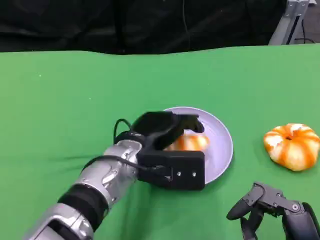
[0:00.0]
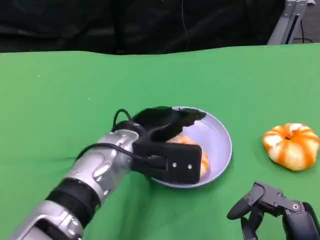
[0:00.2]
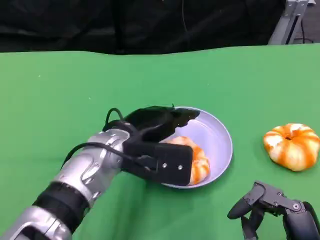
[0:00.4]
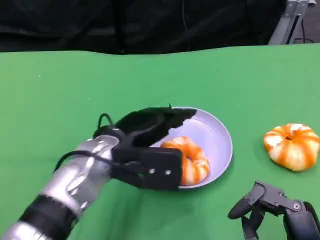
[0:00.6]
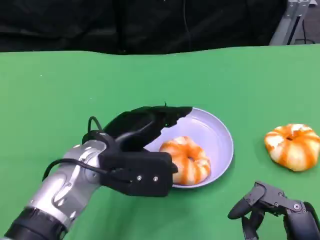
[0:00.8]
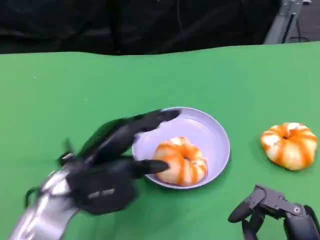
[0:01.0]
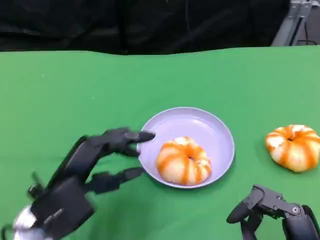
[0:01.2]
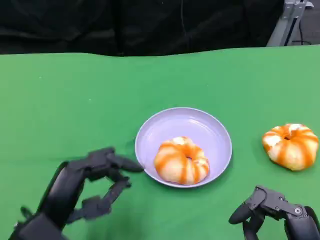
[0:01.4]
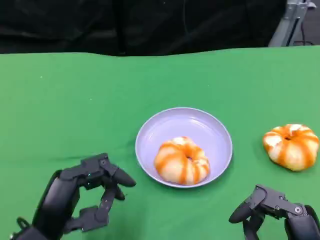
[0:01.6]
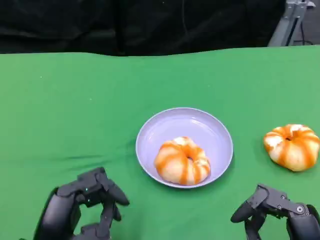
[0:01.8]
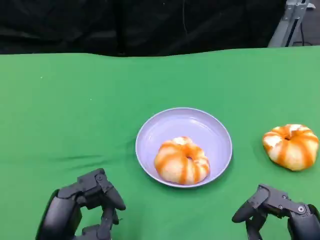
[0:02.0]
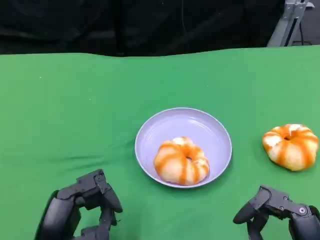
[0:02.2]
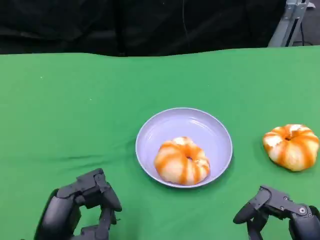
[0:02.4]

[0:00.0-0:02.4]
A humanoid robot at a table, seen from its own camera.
Task of the whole recording: Grasp the bread from the table and place it into the plate.
0:00.0 to 0:01.2: The left hand moves to the left and backward, approximately 15 cm.
0:01.2 to 0:02.4: The left hand shifts about 5 cm backward.

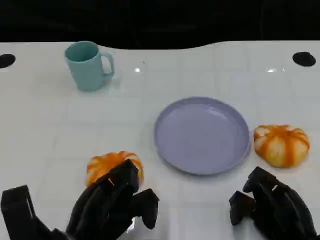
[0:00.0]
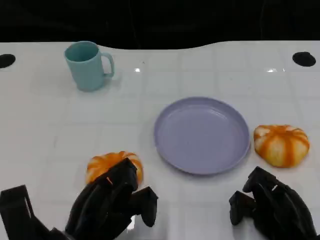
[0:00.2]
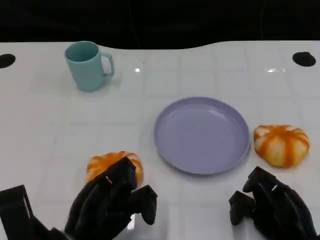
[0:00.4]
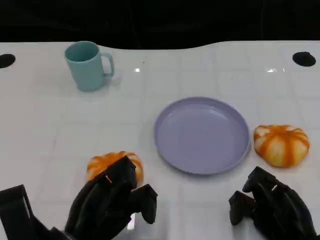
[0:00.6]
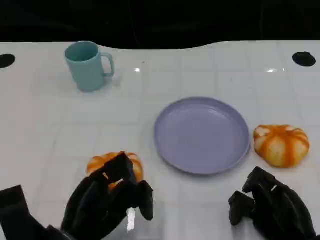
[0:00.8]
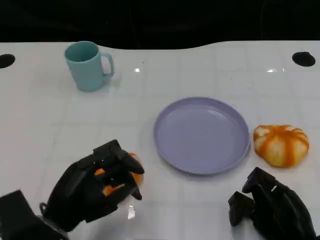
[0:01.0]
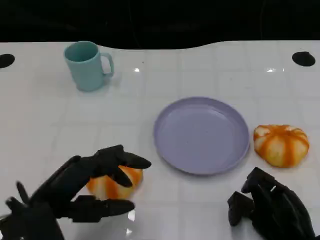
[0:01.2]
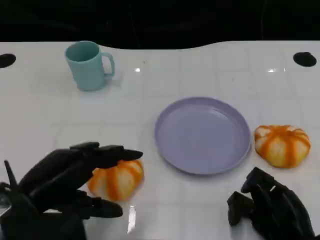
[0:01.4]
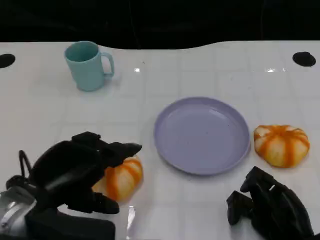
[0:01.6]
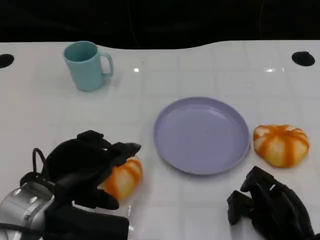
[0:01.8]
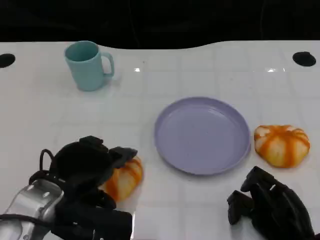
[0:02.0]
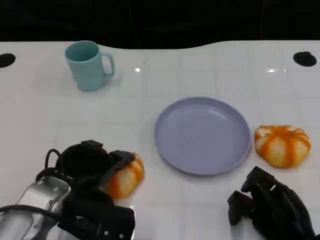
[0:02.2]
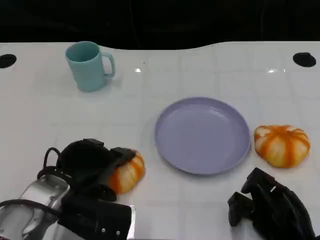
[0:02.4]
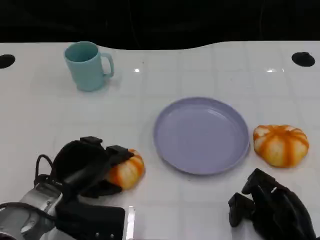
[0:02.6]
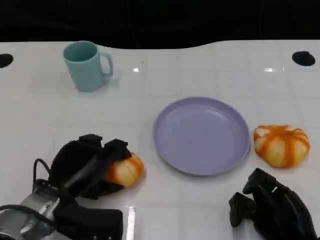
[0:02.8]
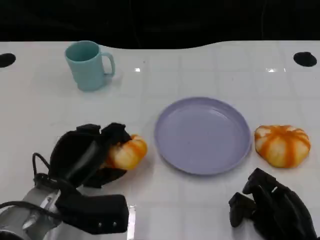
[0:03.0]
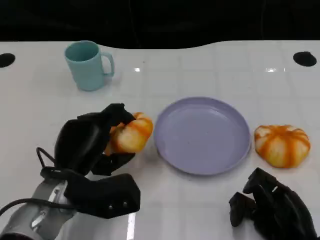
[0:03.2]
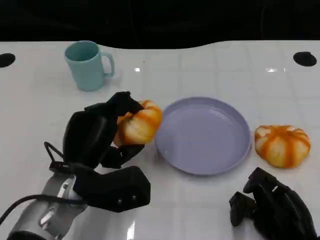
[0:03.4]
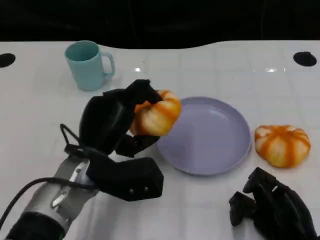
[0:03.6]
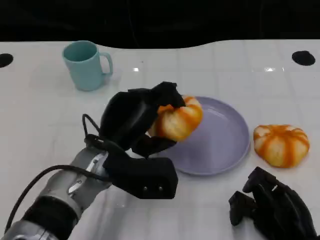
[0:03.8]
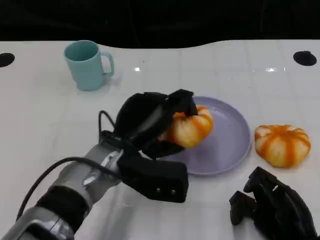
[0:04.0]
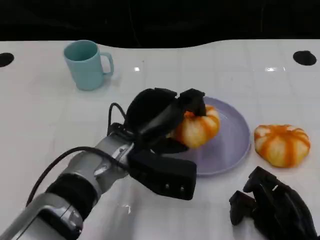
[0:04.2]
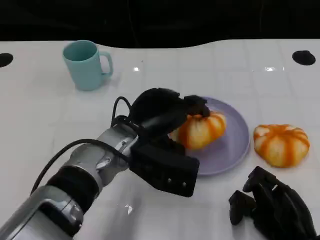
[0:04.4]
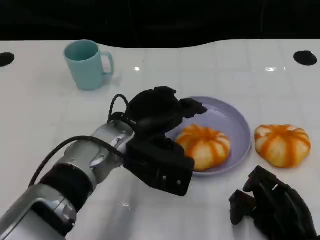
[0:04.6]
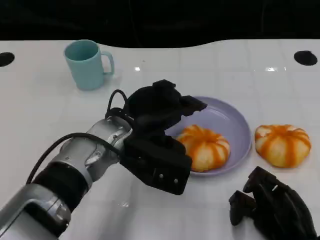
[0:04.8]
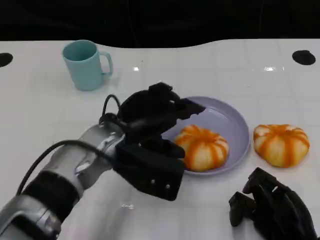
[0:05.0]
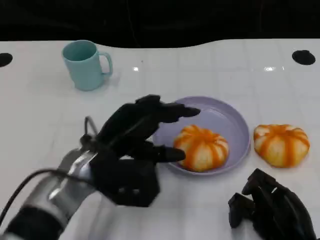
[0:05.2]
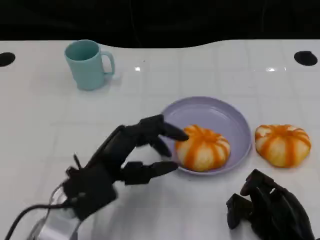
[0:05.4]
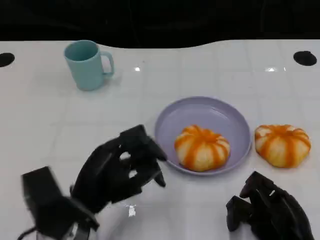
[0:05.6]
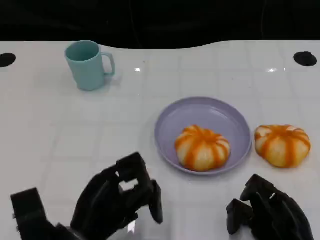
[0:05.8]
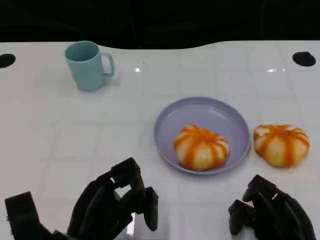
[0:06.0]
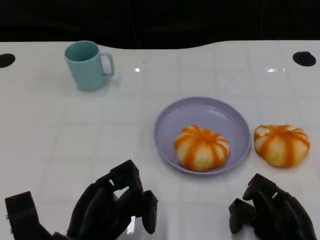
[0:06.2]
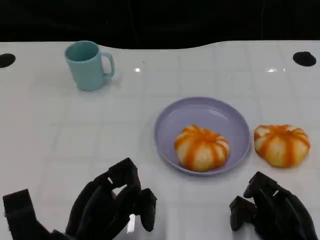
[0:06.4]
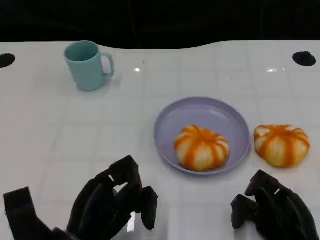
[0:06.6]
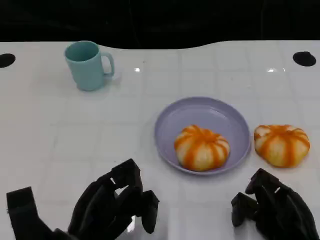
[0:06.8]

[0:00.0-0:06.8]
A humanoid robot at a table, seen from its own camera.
Task of the whole recording: Grasp the bread from the table and place it into the plate.
0:00.0 to 0:01.4: The left hand goes some 10 cm upward.
0:01.4 to 0:02.8: The left hand goes roughly 10 cm downward and forward.
0:02.8 to 0:04.0: The left hand goes about 10 cm to the right and upward.
0:04.0 to 0:05.4: The left hand shifts roughly 10 cm to the left and backward.
0:05.4 to 0:06.8: The left hand shifts about 5 cm backward.

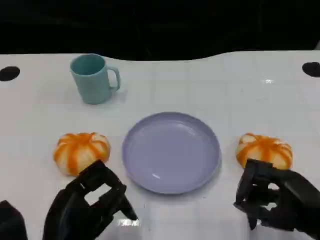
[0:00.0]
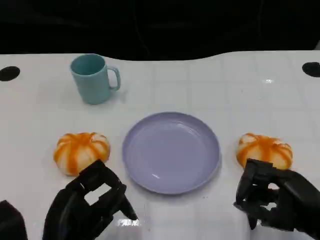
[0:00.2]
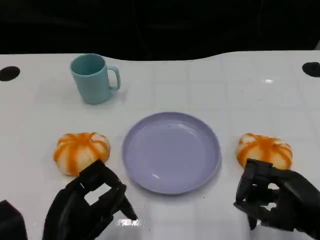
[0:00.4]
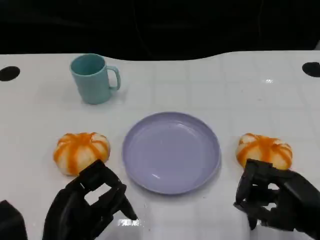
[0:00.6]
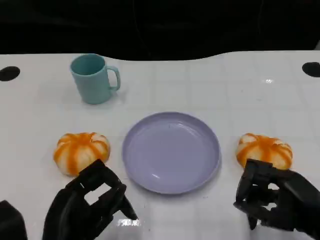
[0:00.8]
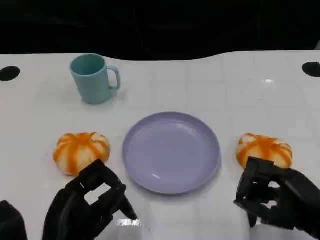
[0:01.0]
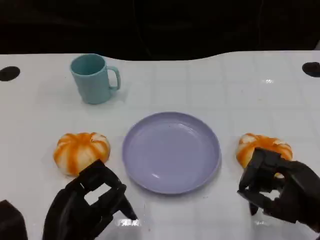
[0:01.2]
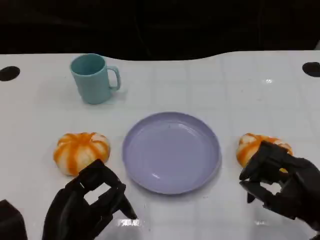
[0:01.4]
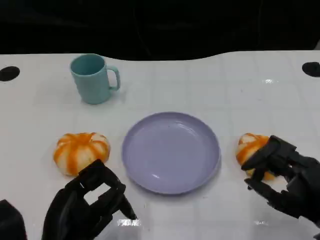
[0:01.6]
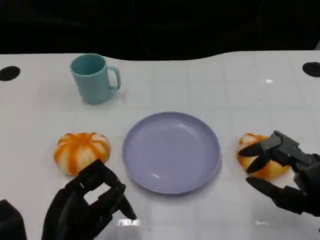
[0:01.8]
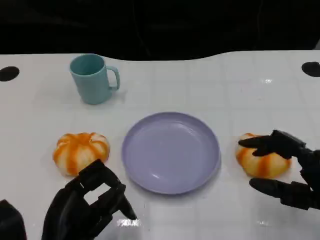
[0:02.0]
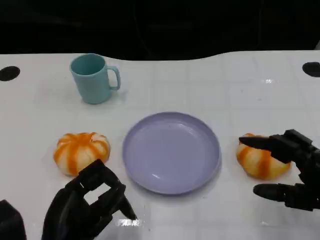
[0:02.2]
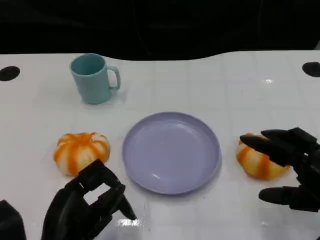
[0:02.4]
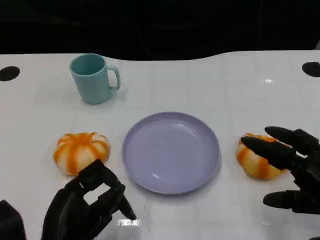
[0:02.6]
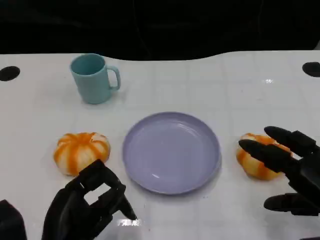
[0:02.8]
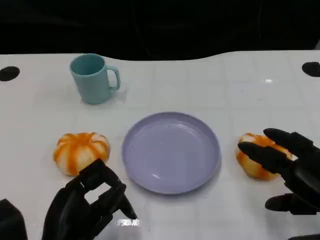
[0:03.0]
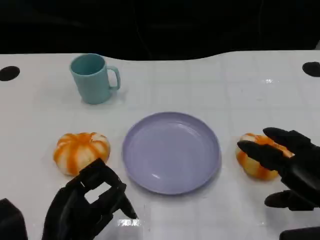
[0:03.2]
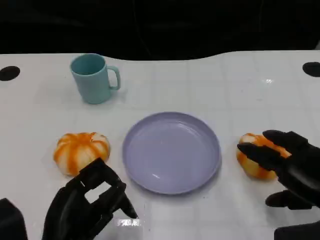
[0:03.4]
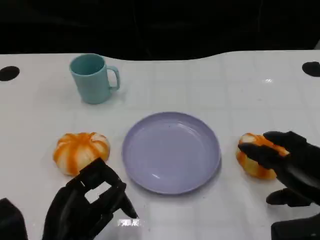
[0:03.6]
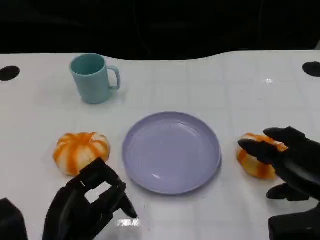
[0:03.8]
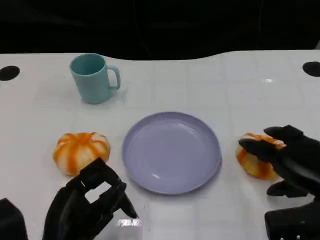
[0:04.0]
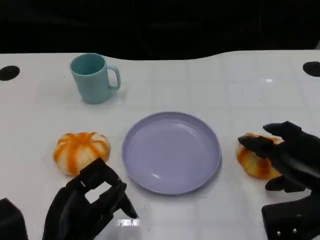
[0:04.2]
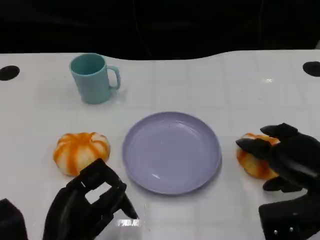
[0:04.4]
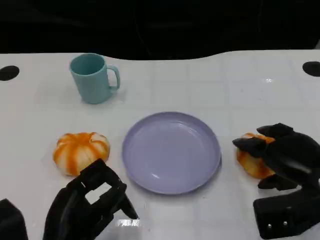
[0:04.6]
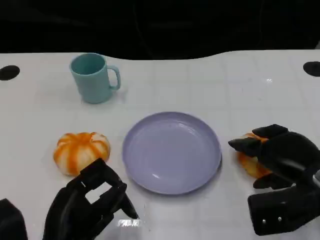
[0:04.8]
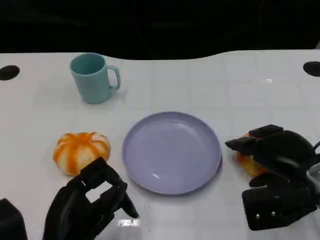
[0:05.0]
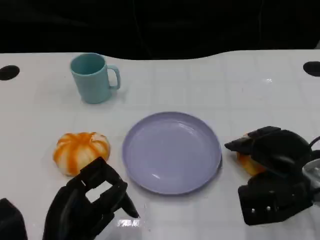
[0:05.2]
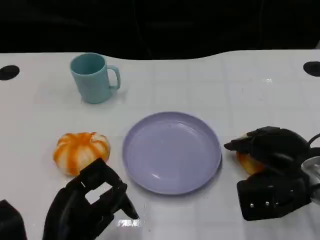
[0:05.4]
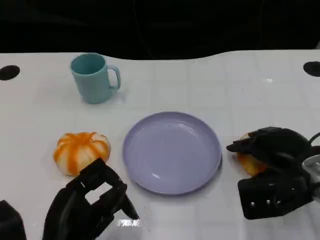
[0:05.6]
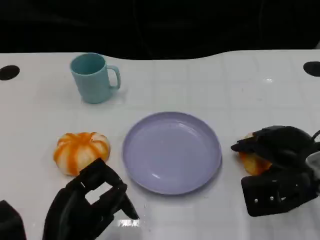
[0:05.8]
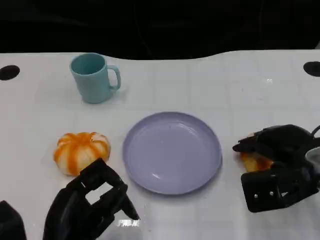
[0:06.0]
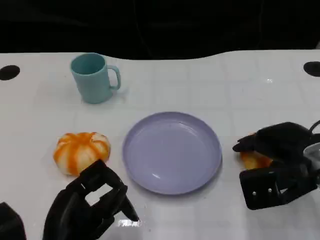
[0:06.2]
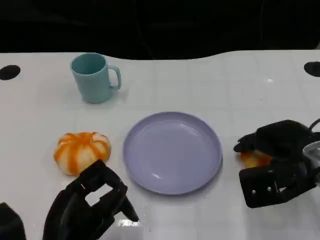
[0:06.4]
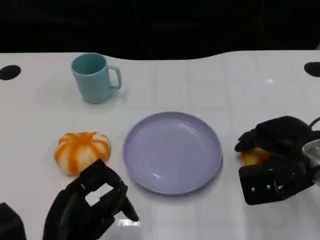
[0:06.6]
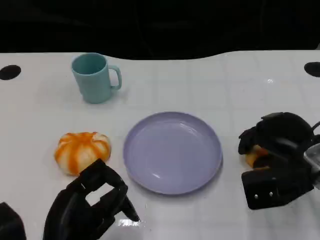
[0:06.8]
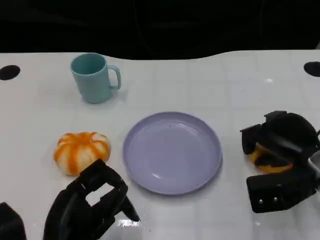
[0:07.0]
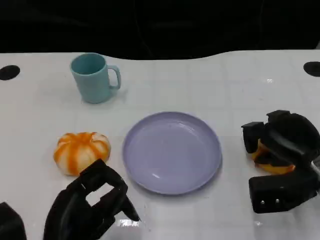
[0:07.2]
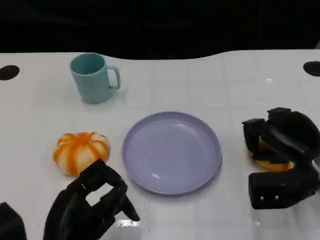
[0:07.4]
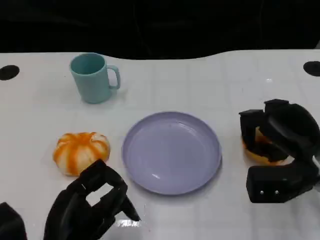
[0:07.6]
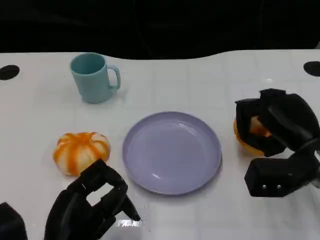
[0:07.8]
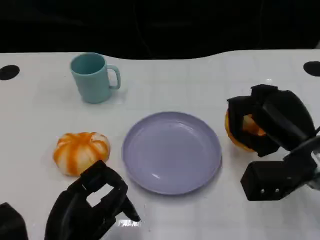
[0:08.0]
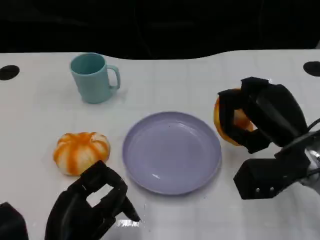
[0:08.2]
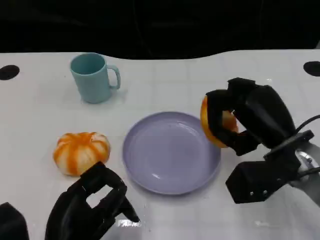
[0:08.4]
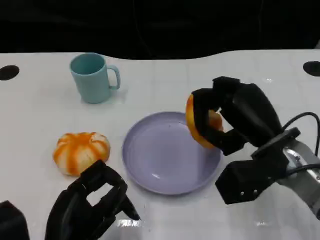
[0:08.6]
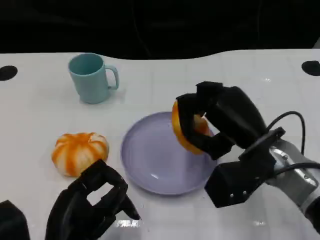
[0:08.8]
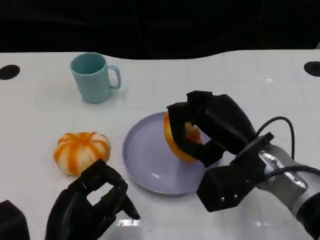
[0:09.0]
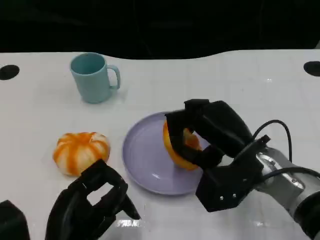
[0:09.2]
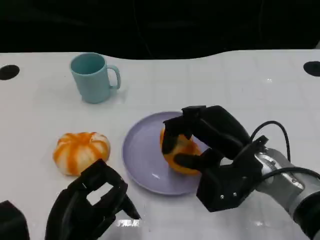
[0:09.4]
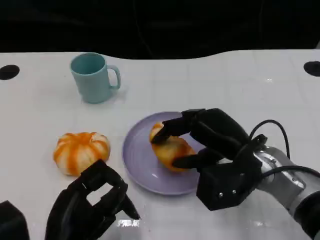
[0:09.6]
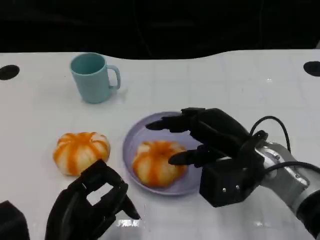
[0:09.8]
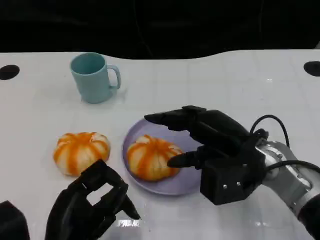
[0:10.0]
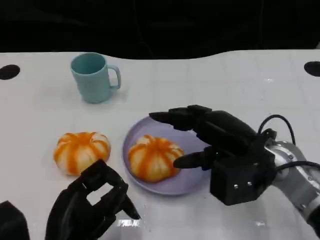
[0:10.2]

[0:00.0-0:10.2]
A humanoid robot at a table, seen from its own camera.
Task of the whole recording: Grasp the bread from the table and place it into the plate.
0:00.0 to 0:01.4: The hands move only a little.
0:03.0 to 0:04.4: The right hand is displaced forward by some 5 cm.
0:04.4 to 0:07.2: The hands stay close to where they were, moving slightly.
0:07.2 to 0:08.8: The right hand shifts approximately 10 cm to the left.

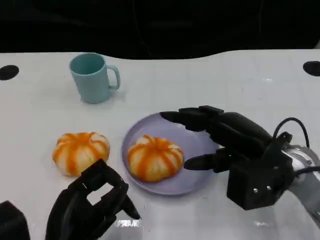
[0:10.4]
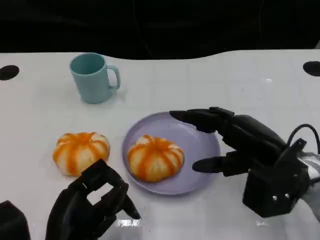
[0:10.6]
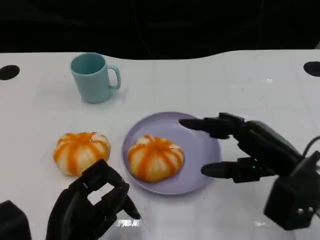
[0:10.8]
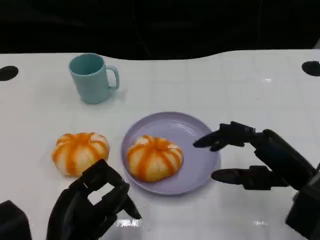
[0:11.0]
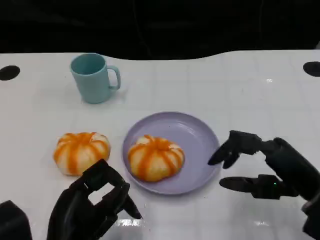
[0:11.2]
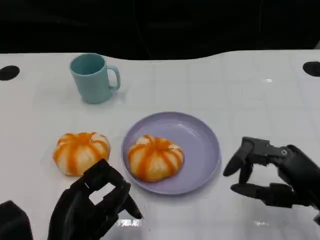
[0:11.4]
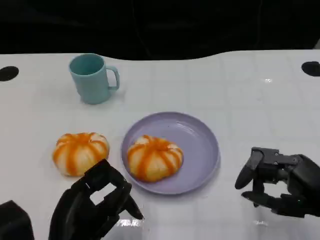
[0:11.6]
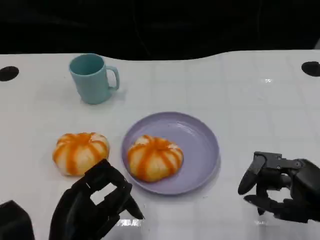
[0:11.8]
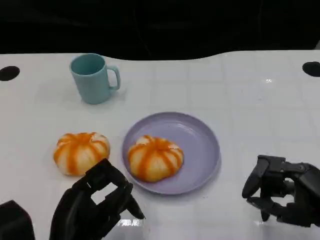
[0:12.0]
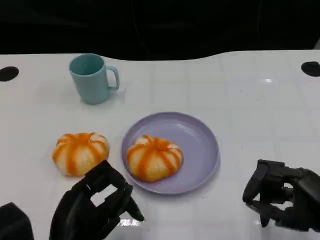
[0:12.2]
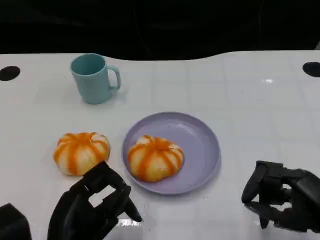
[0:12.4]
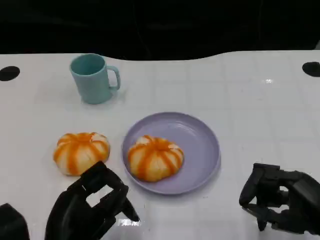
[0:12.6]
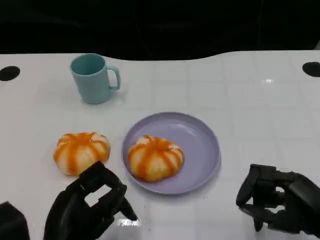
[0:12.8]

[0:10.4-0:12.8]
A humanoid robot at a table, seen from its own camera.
Task of the whole recording: Grasp the bread from the table and place it into the plate.
0:10.4 to 0:11.6: The right hand moves to the right and backward, roughly 10 cm.
0:11.6 to 0:12.8: The hands make only small movements.
